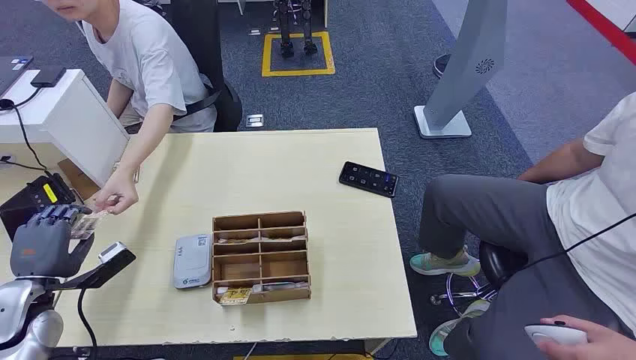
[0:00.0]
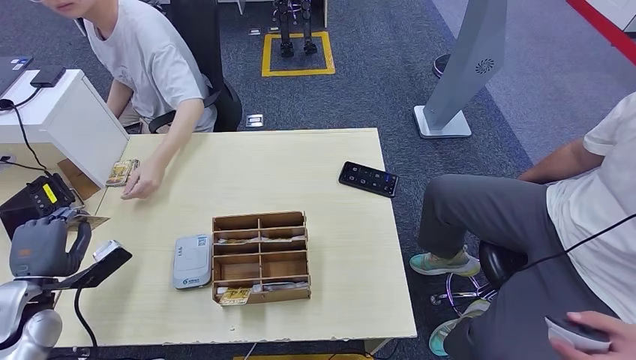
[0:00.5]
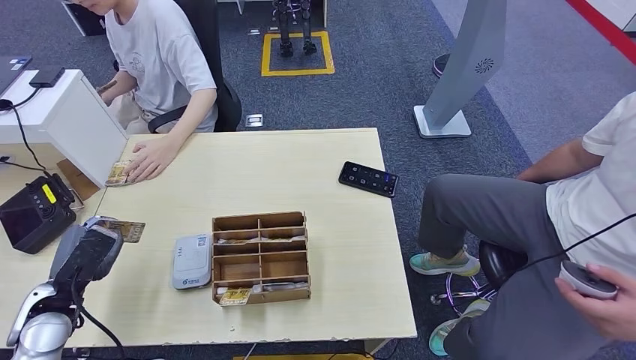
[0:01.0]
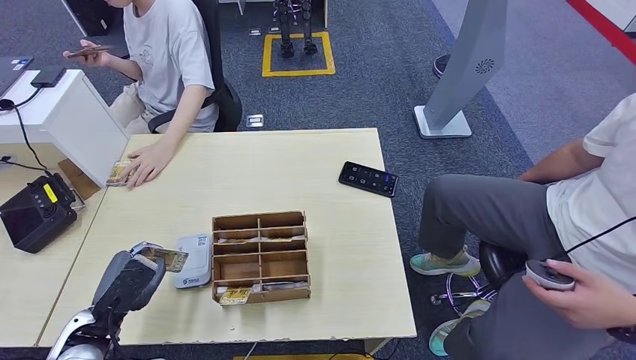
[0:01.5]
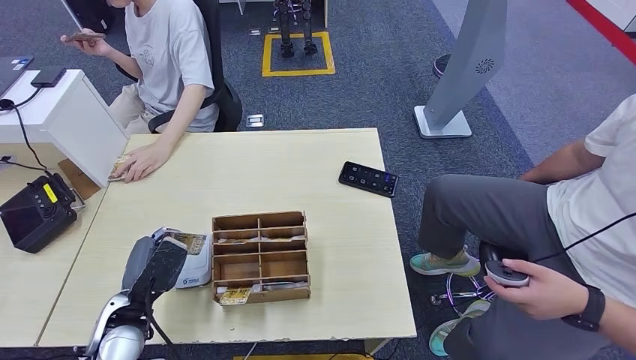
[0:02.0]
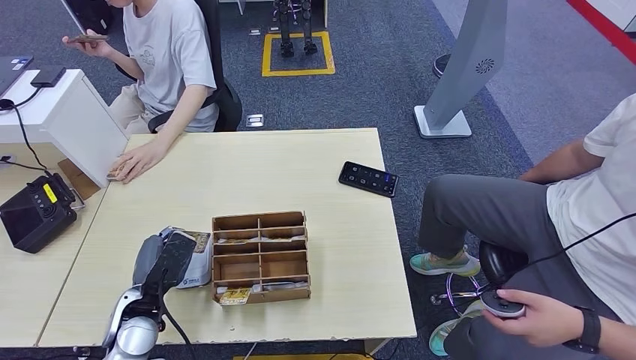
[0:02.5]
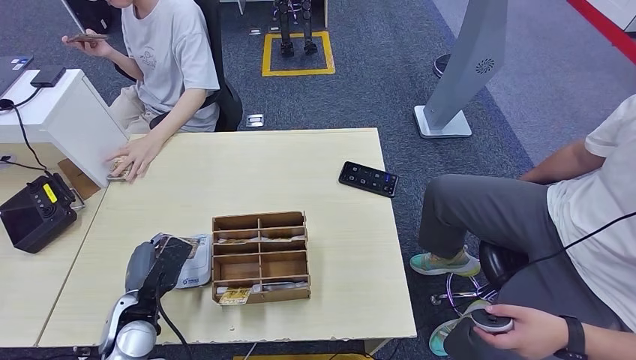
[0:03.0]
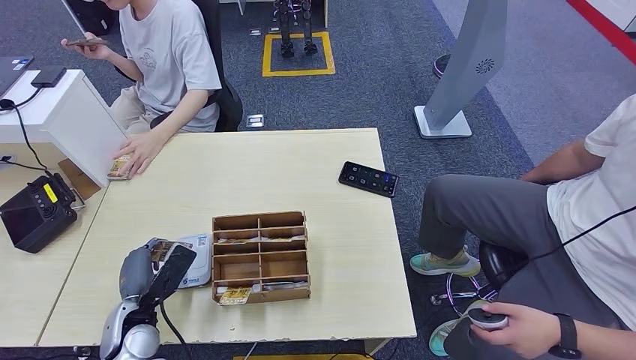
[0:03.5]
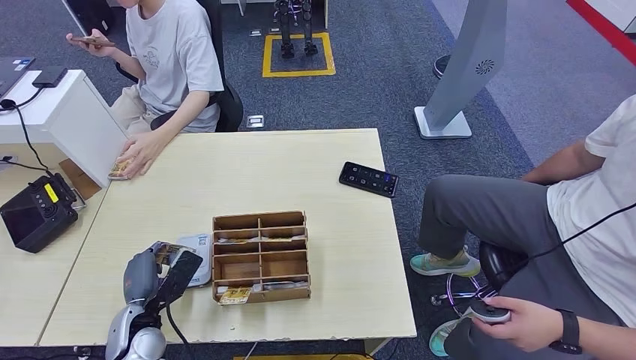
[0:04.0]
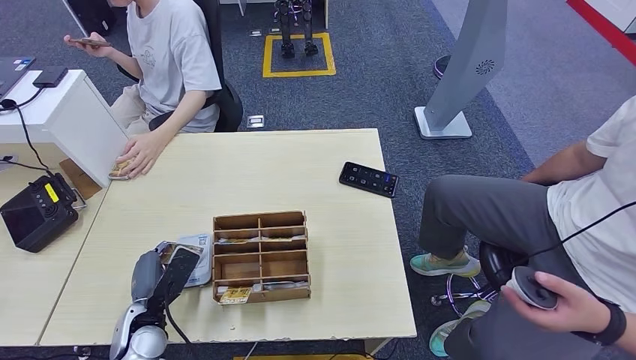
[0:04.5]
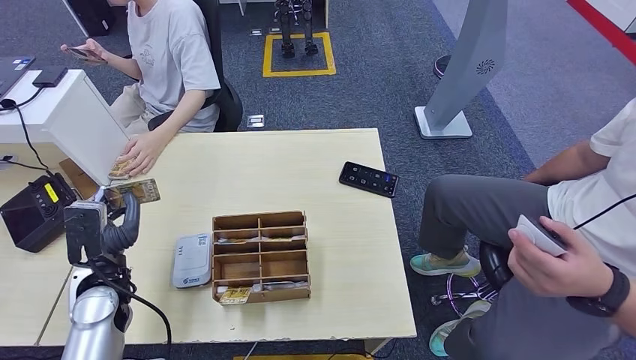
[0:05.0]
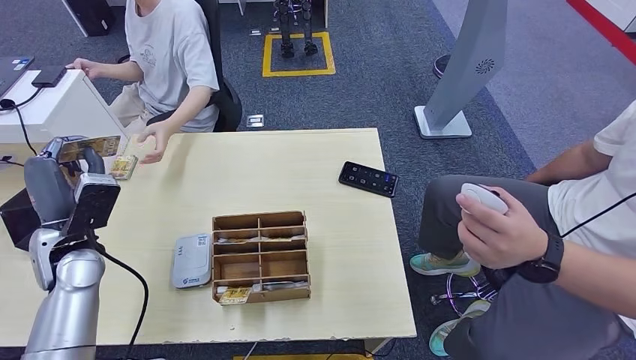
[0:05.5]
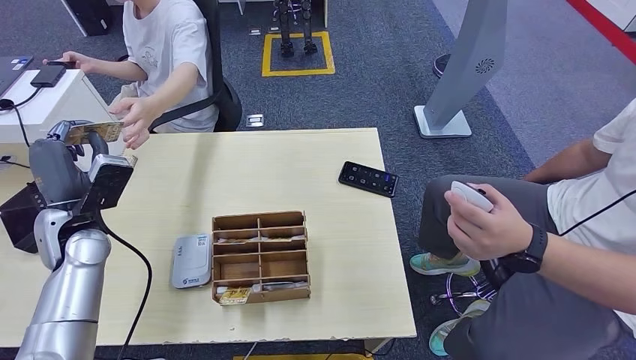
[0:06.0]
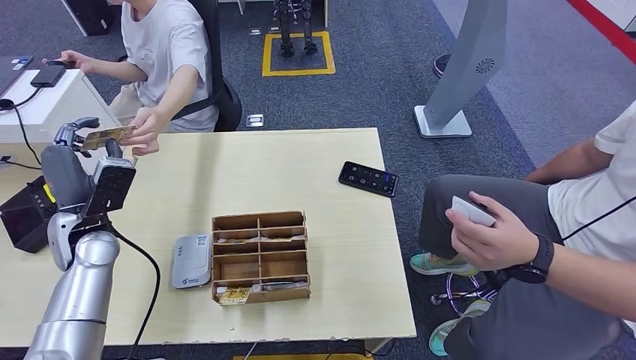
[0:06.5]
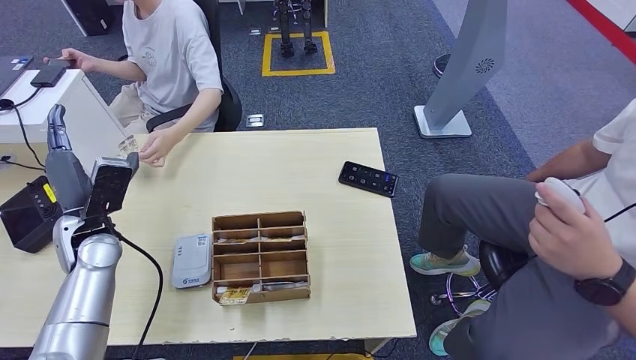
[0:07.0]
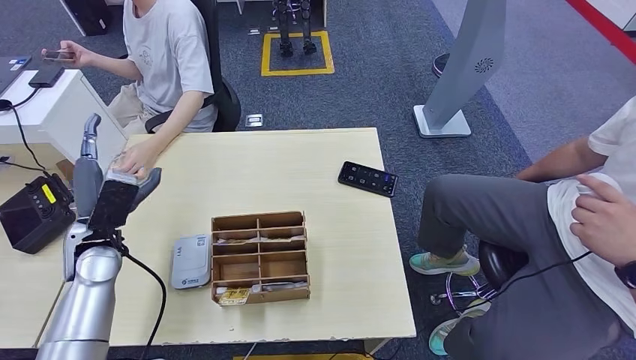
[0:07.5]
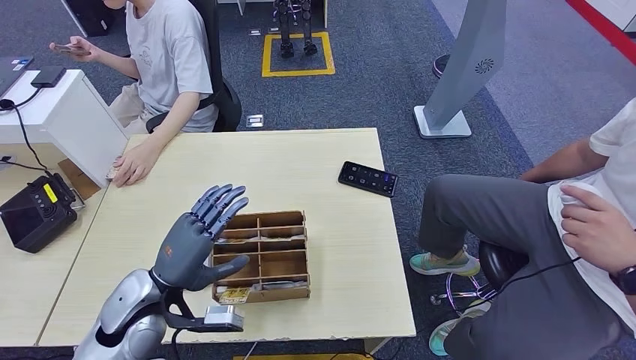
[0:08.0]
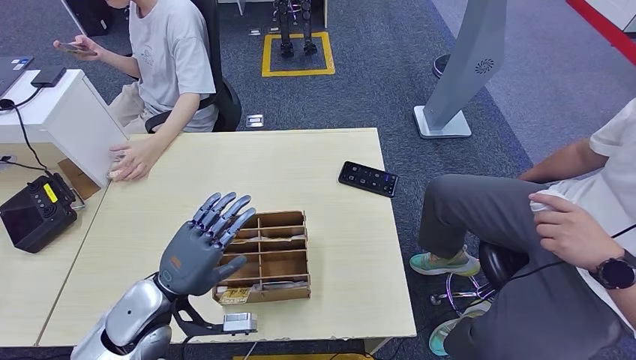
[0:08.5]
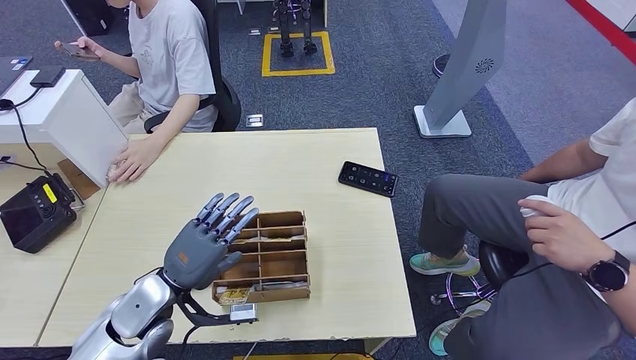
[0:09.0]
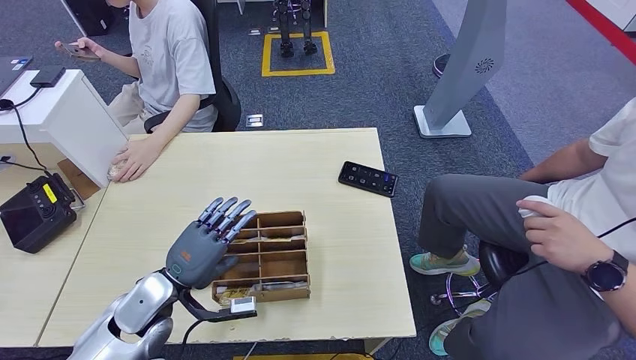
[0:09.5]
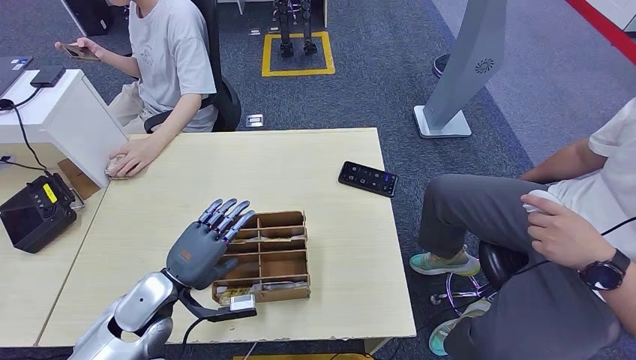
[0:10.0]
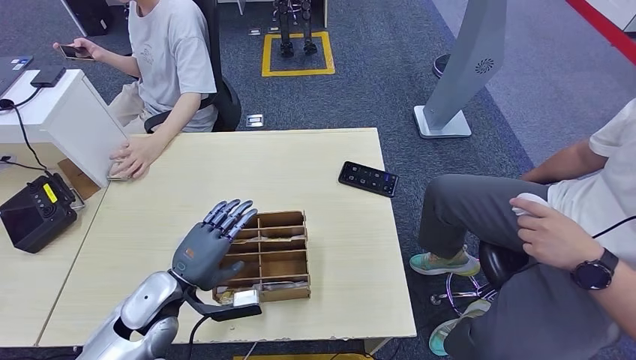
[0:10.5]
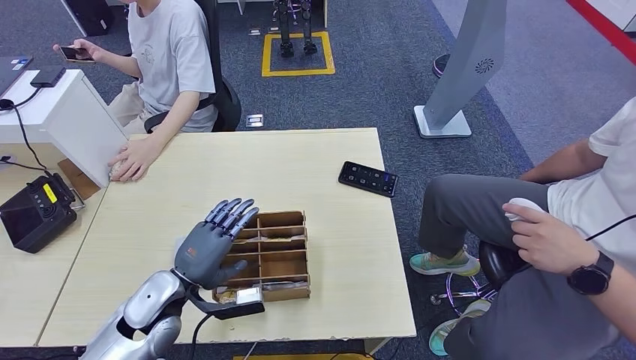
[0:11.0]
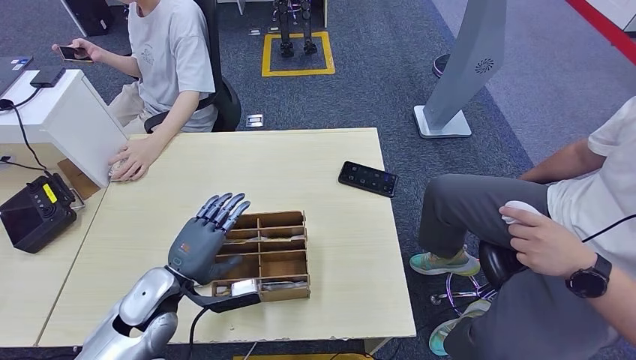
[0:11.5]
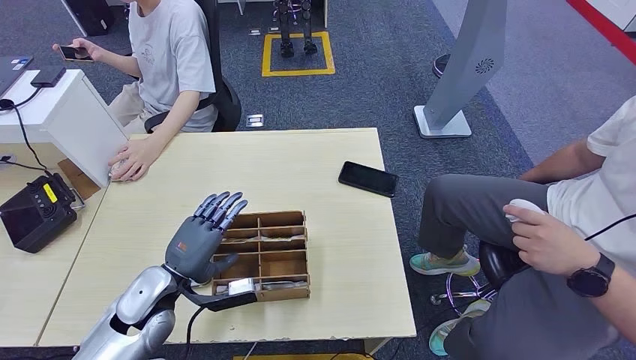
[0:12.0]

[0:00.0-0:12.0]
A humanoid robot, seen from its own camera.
Step, 0:00.0 to 0:00.5: Take the ID card from the person's hand.
Step, 0:01.5 to 0:05.0: Place the ID card on the card reader.
Step, 0:05.5 to 0:07.0: Hand the ID card to the person.
0:02.0 to 0:04.0: The left hand moves downward, approximately 5 cm.
0:08.0 to 0:10.0: The left hand changes place by about 5 cm.
0:10.0 to 0:12.0: The hands stay close to where they were, moving slightly.

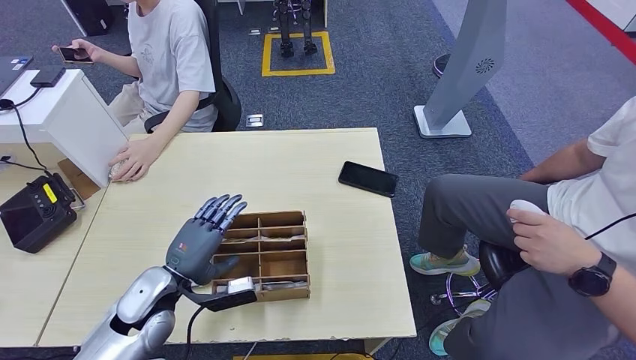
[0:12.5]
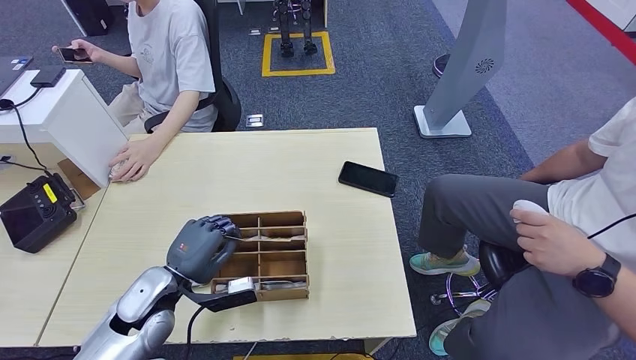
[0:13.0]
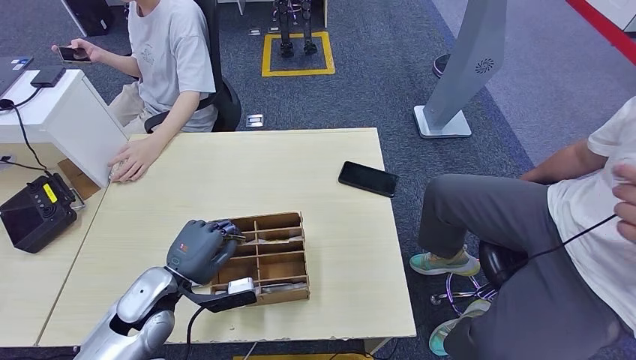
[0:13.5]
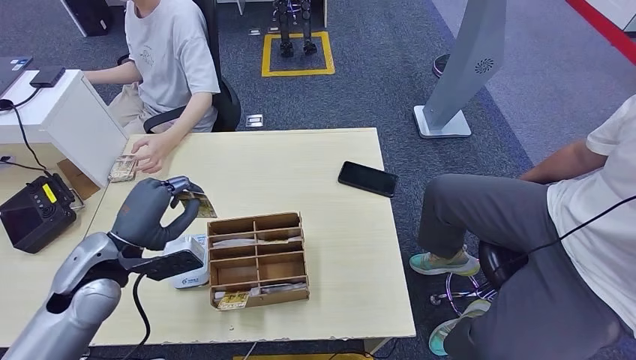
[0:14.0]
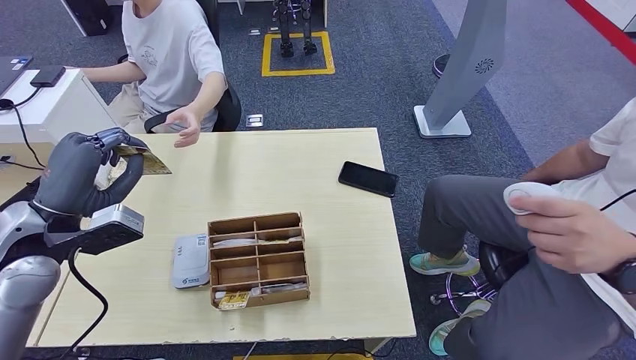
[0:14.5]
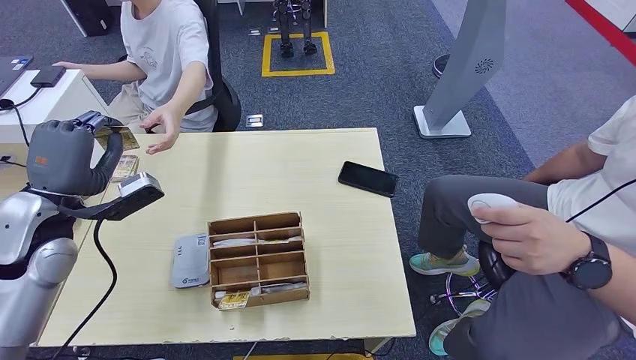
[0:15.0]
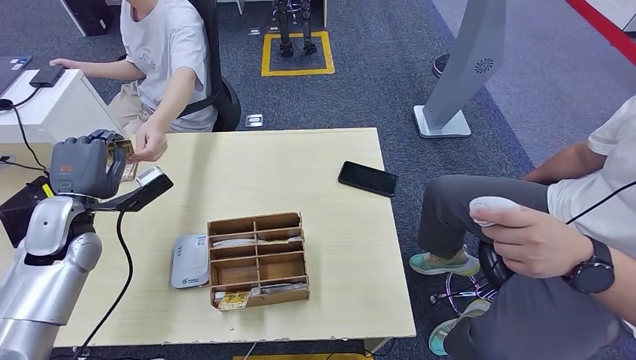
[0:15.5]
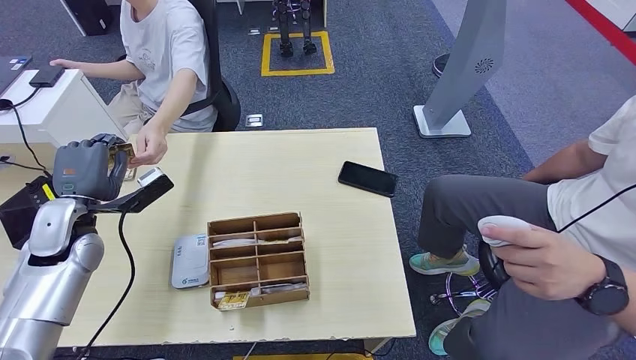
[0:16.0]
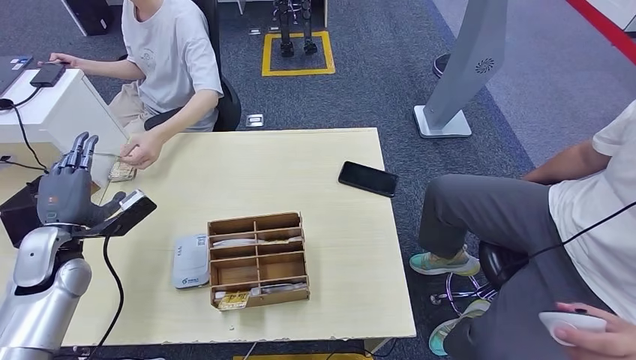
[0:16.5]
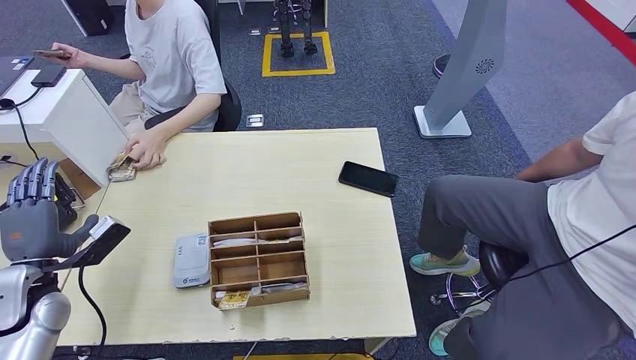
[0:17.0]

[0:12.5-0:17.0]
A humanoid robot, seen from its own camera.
Step, 0:14.0 to 0:17.0: Hand the room key to the person.
0:14.5 to 0:17.0: The left hand heads downward and to the left, covering approximately 15 cm.
